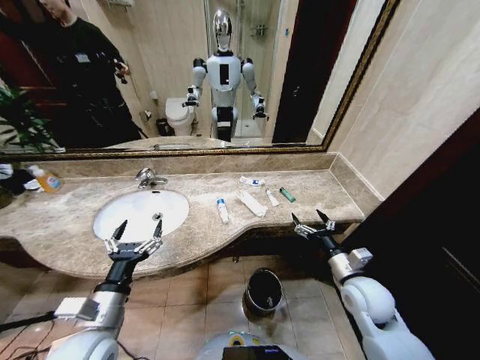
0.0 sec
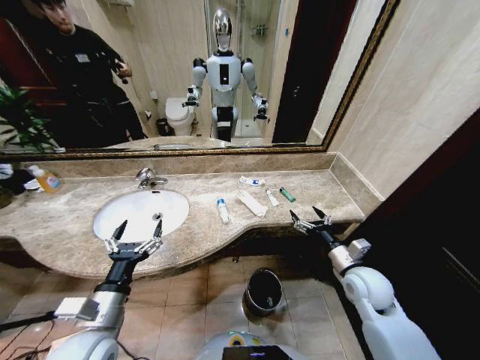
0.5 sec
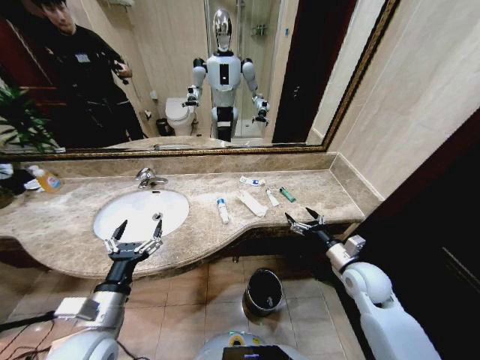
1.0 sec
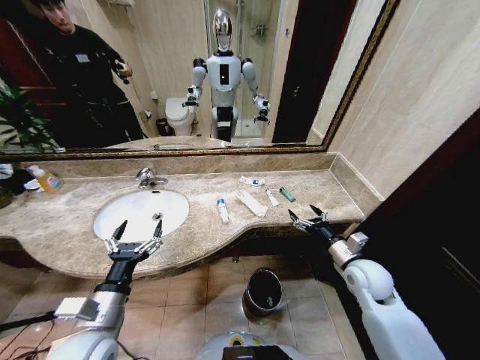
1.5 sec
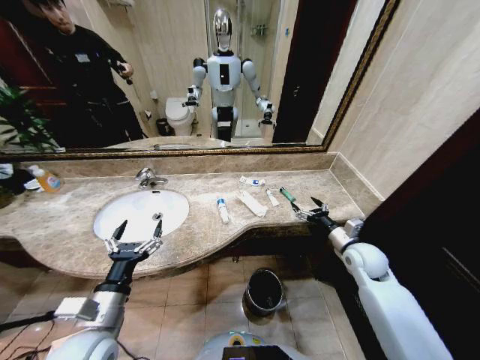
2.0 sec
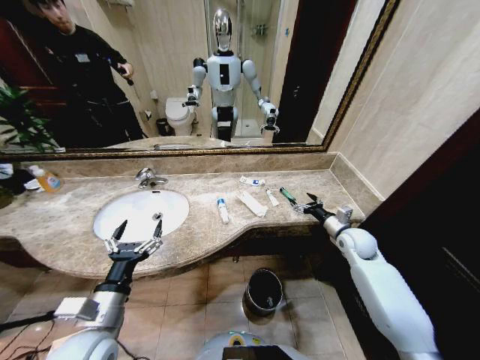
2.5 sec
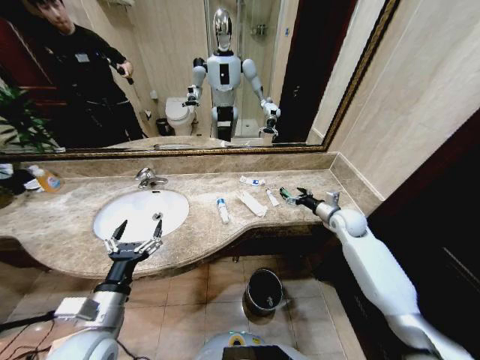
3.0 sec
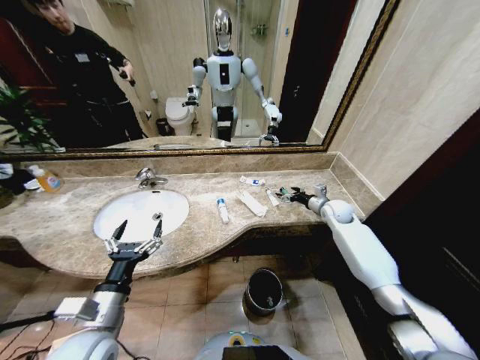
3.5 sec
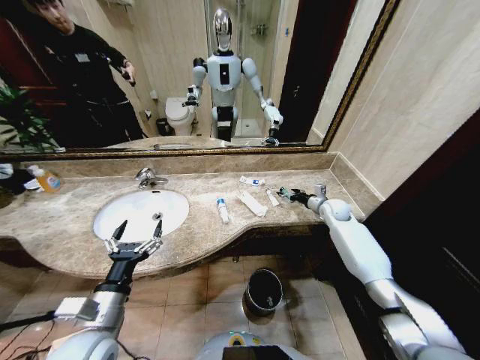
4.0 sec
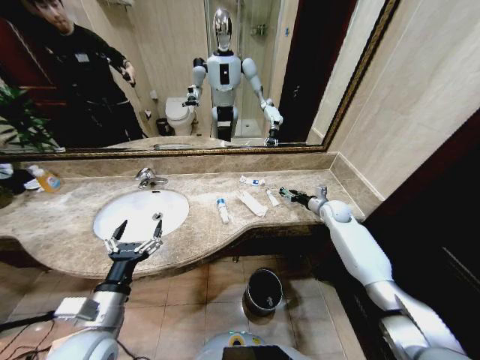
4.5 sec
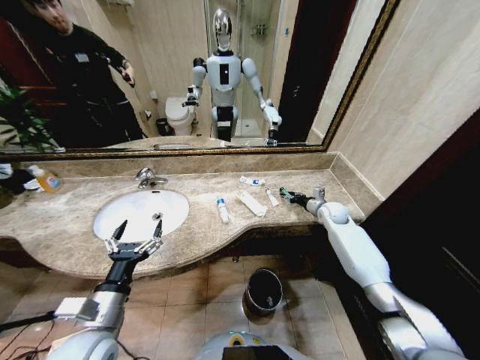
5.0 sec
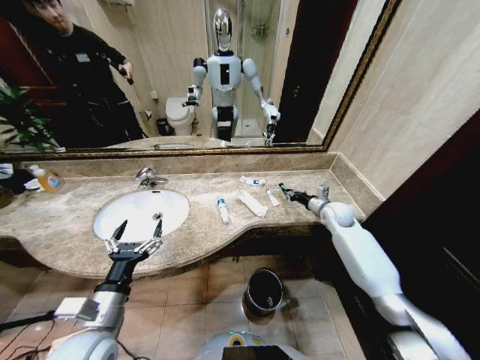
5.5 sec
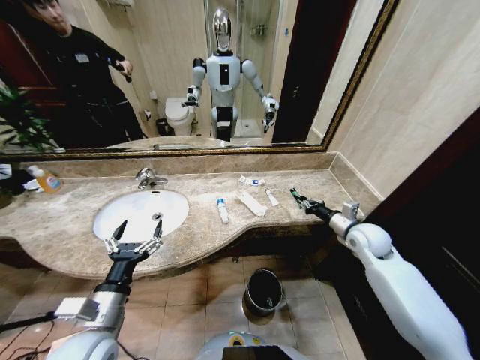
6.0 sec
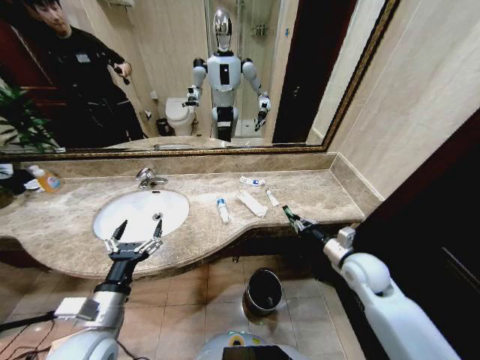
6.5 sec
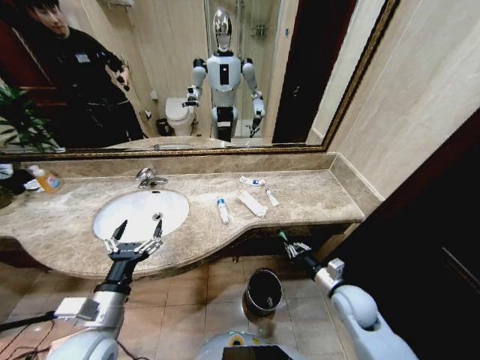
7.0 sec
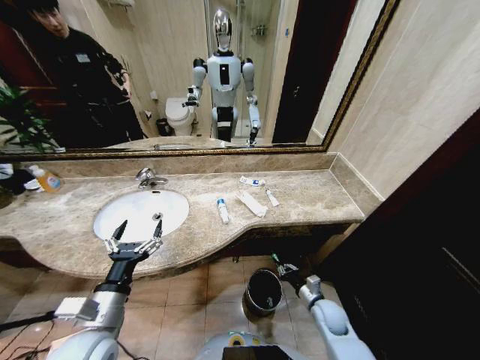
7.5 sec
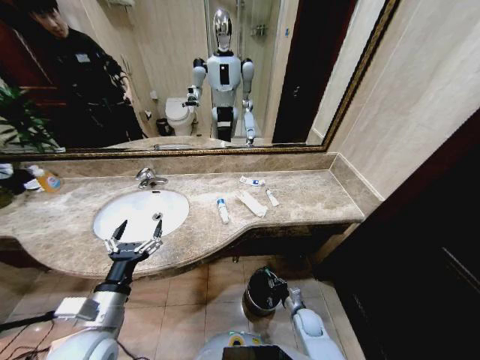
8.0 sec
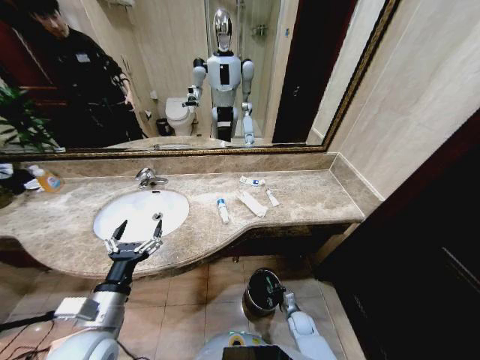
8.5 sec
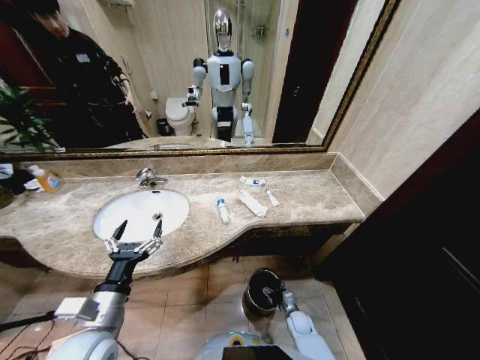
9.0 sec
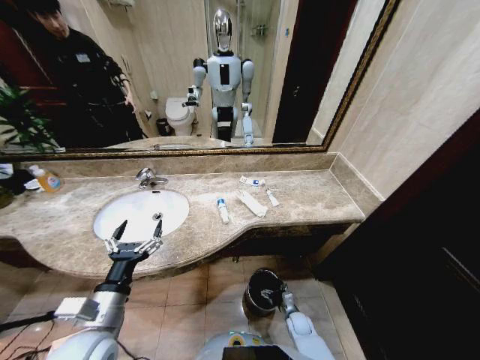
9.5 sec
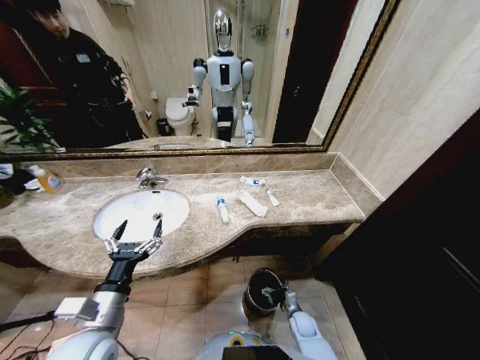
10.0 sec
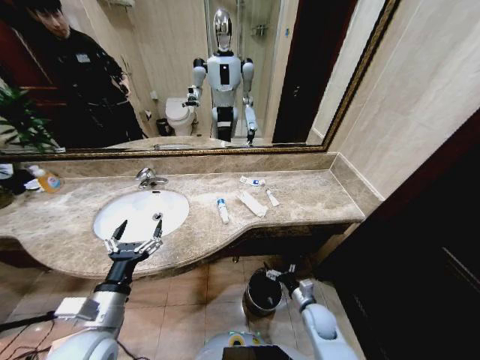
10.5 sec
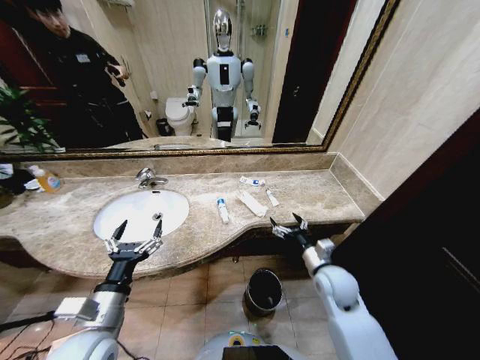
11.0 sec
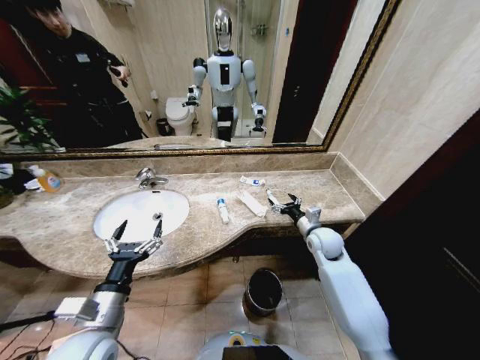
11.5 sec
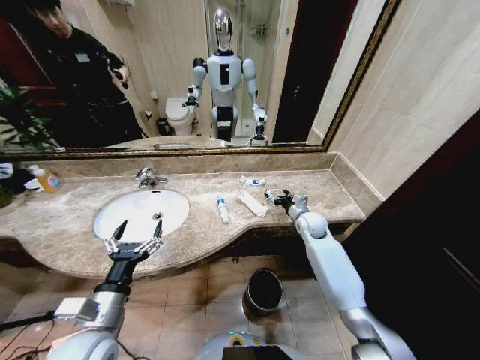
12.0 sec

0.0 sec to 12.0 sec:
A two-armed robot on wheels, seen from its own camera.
Task of the whole recording: Pick up the trash from the sink and place it in the trash bin.
2.0 sec to 4.0 sec: The right gripper shifts roughly 20 cm forward.
4.0 sec to 6.0 sec: The right gripper shifts some 15 cm backward, and closes.
6.0 sec to 8.0 sec: The right gripper is displaced downward and backward by roughly 35 cm.
8.0 sec to 10.0 sec: The right gripper opens up.
10.0 sec to 12.0 sec: The right gripper goes approximately 40 cm upward and forward.

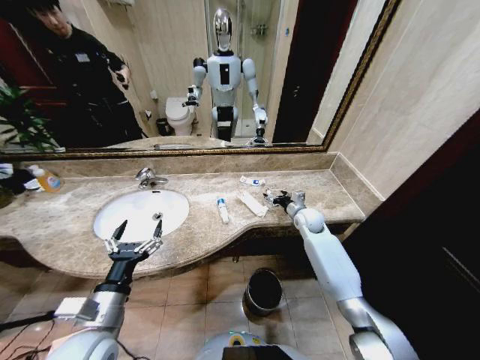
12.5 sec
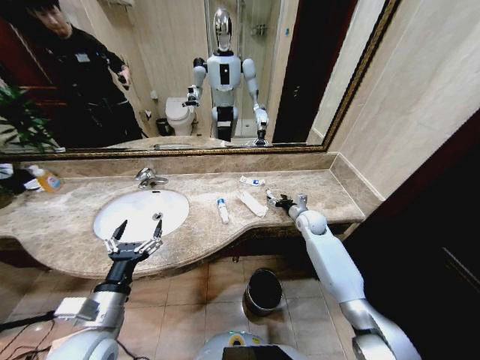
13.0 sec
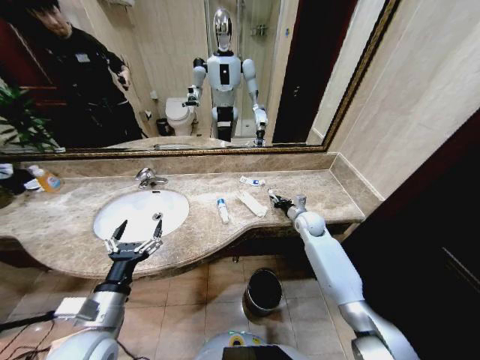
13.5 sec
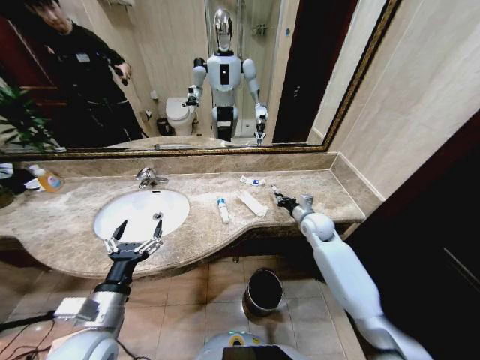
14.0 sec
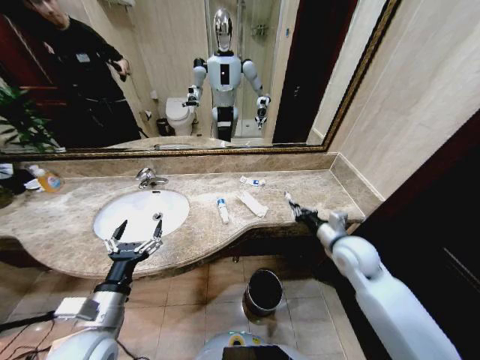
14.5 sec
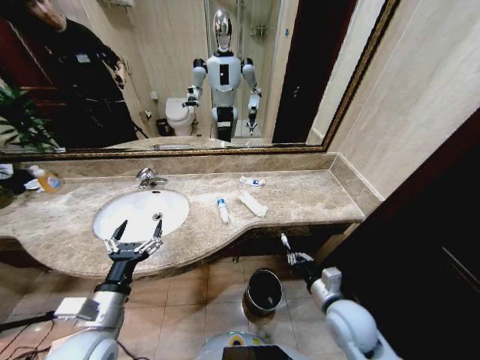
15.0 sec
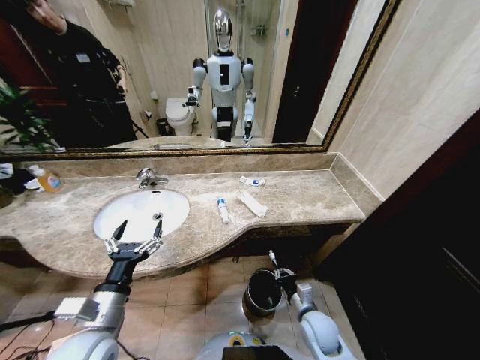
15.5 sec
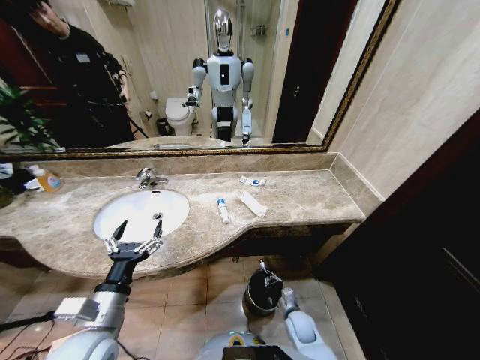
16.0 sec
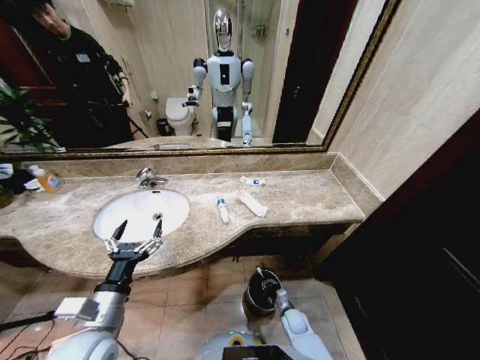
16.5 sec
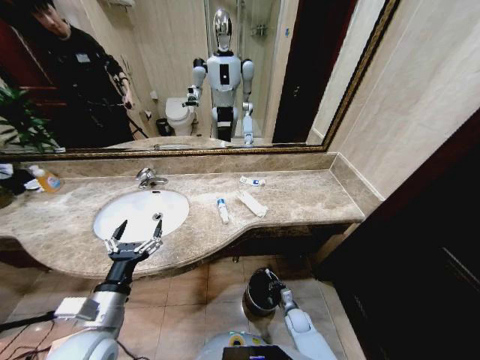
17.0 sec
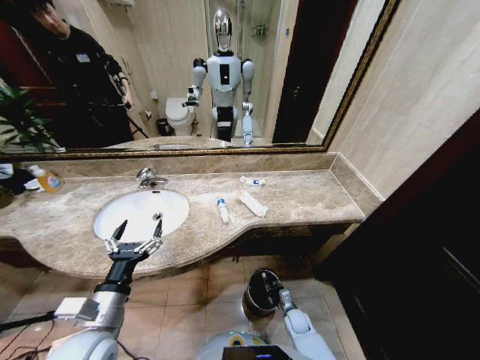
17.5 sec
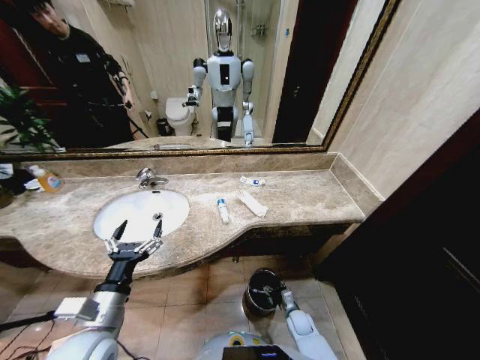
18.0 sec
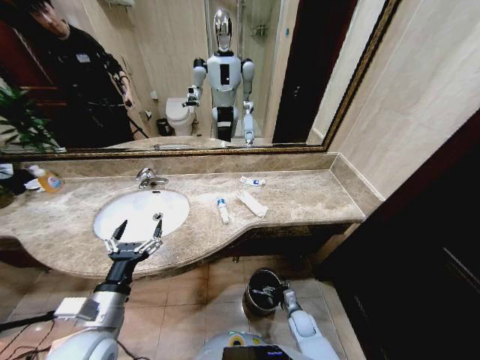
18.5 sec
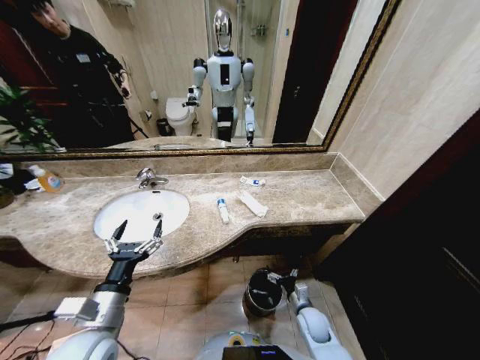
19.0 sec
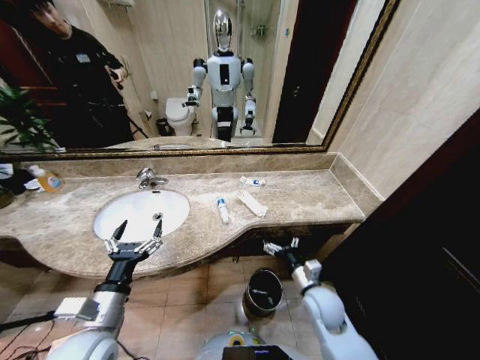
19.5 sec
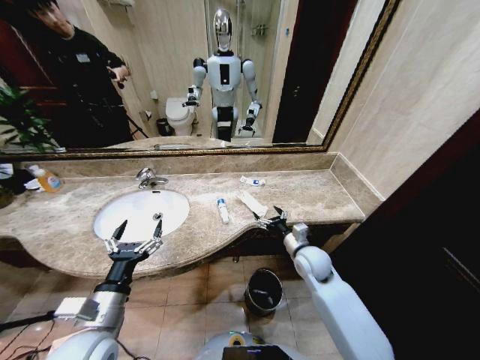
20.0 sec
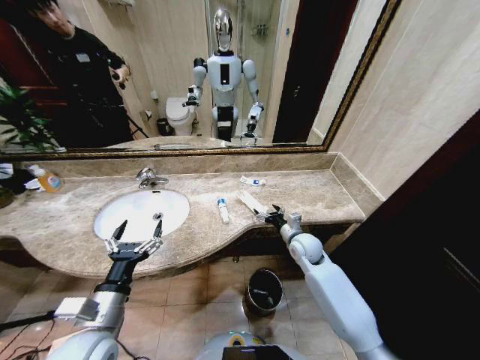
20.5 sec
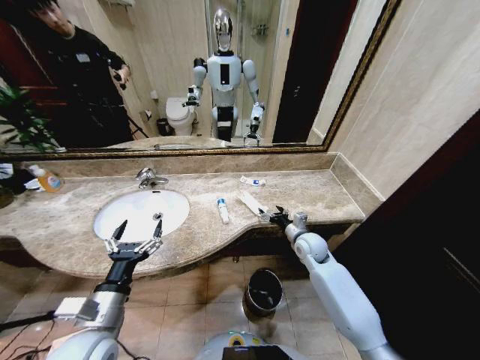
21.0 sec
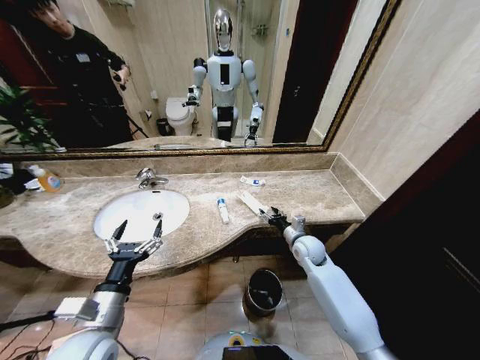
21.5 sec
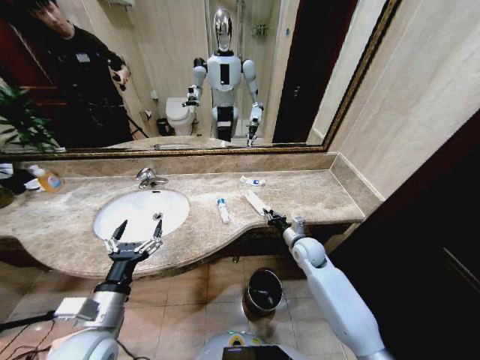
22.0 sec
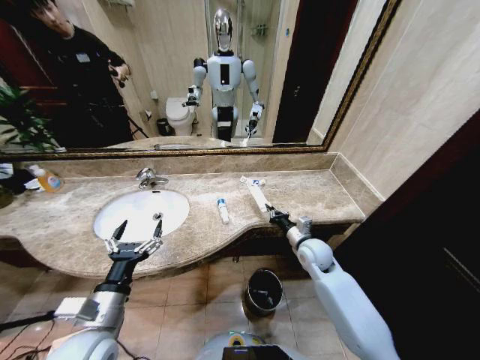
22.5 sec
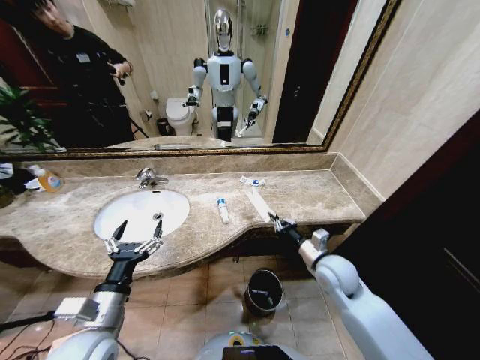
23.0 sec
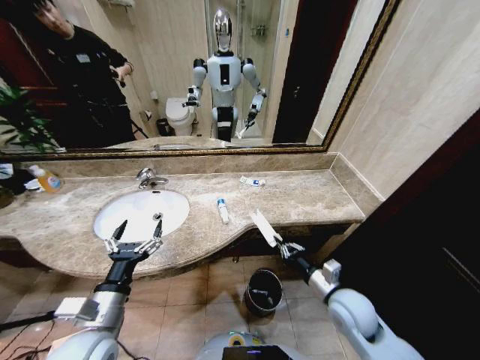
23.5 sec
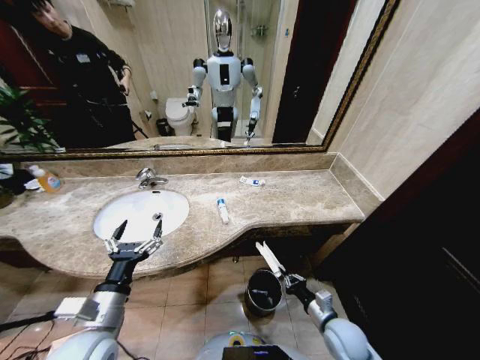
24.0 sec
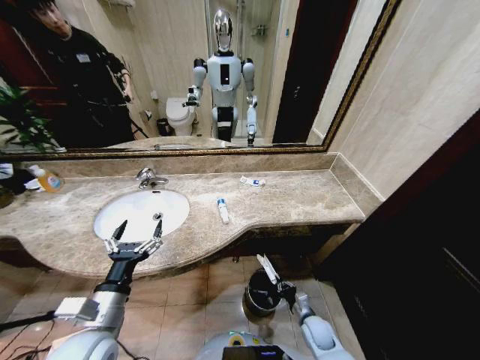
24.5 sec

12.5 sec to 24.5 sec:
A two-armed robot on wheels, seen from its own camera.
Task of the whole recording: Pick up the trash from the sink and place it in the trash bin.
12.5 sec to 14.5 sec: The right gripper is displaced backward and upward by approximately 20 cm, and closes.
14.5 sec to 16.5 sec: The right gripper heads downward, covering about 40 cm.
16.5 sec to 18.5 sec: The right gripper opens.
18.5 sec to 20.5 sec: The right gripper shifts some 30 cm upward and forward.
20.5 sec to 22.5 sec: The right gripper closes.
22.5 sec to 24.5 sec: The right gripper travels downward and backward by approximately 30 cm.

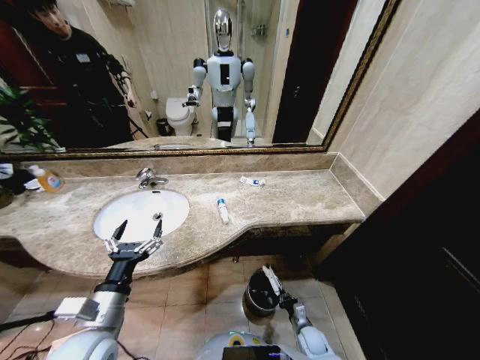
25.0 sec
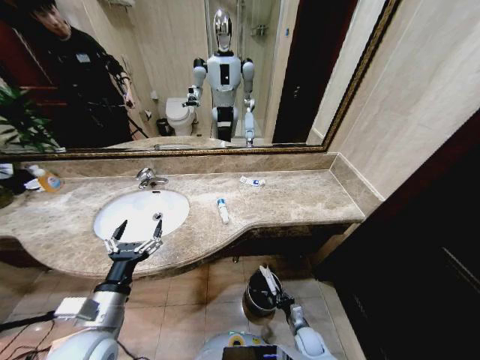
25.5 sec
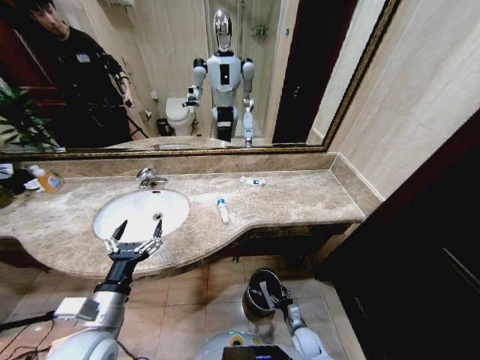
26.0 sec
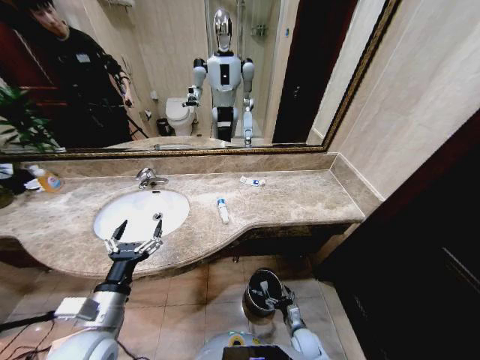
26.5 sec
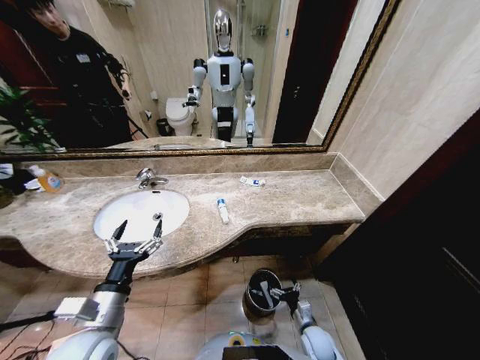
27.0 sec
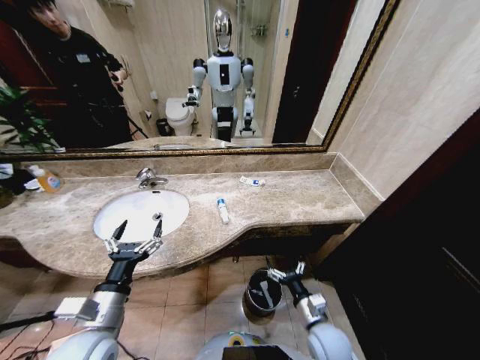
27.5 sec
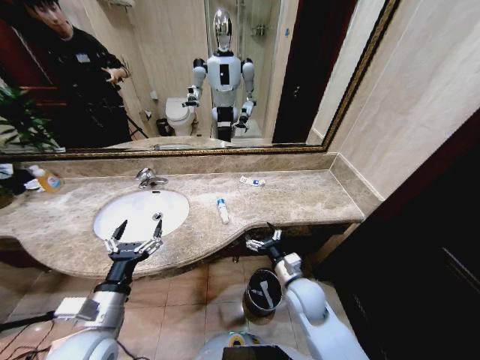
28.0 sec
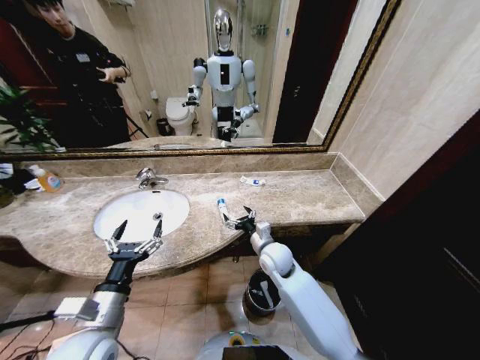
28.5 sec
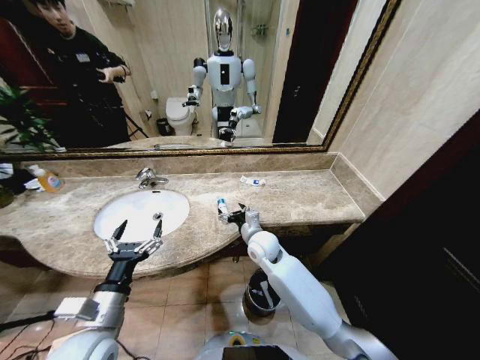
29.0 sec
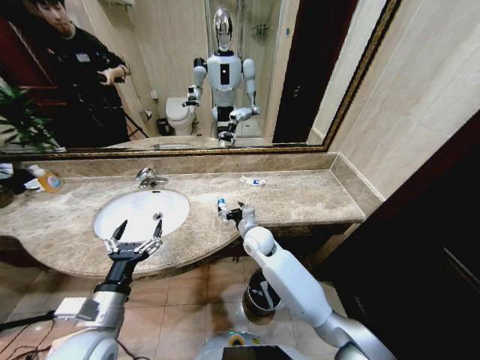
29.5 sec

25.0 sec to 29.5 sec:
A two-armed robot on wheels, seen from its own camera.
Task of the whole recording: Pick up the trash from the sink and place it in the trash bin.
25.0 sec to 27.0 sec: The right gripper shifts about 5 cm upward, and opens its fingers.
27.0 sec to 29.5 sec: The right gripper is displaced upward, forward and to the left by approximately 40 cm.
